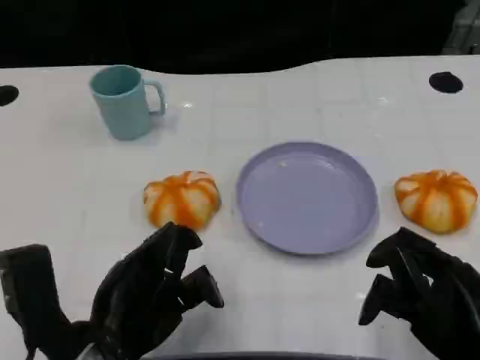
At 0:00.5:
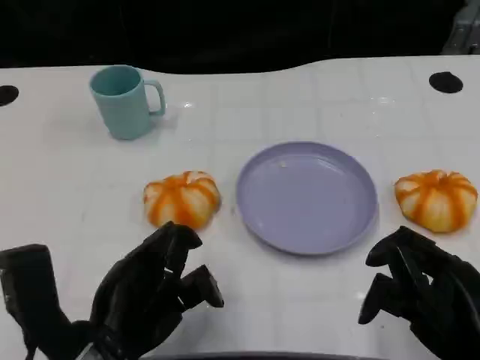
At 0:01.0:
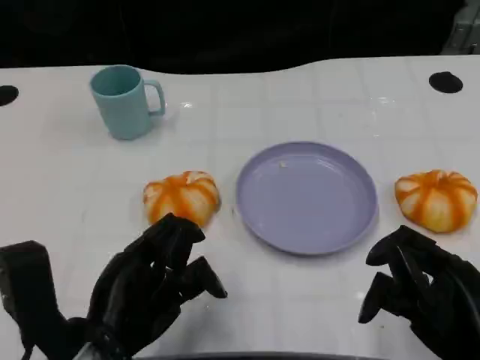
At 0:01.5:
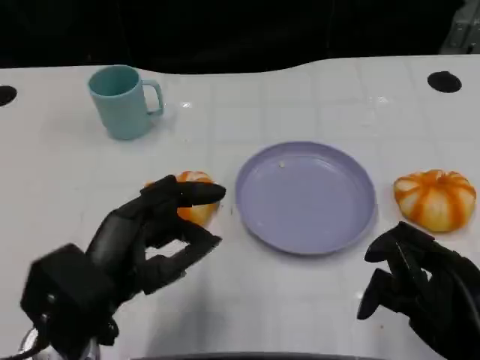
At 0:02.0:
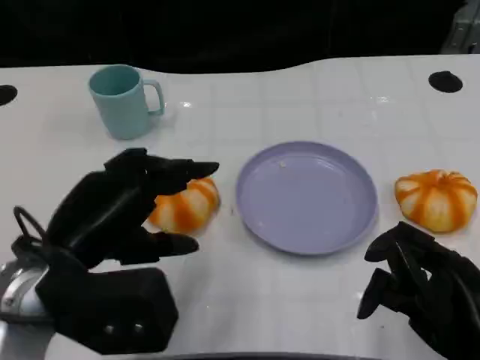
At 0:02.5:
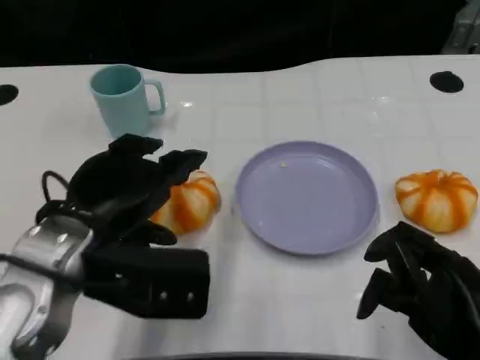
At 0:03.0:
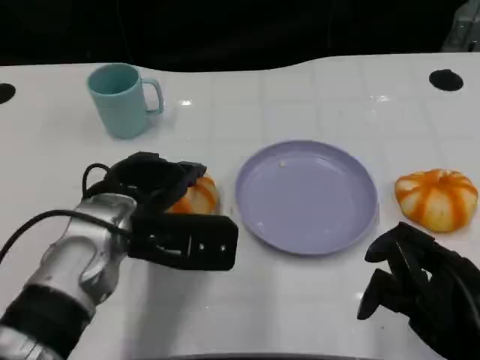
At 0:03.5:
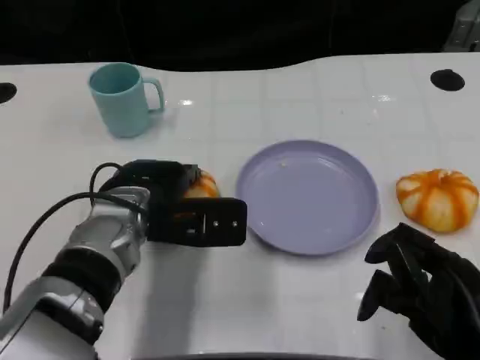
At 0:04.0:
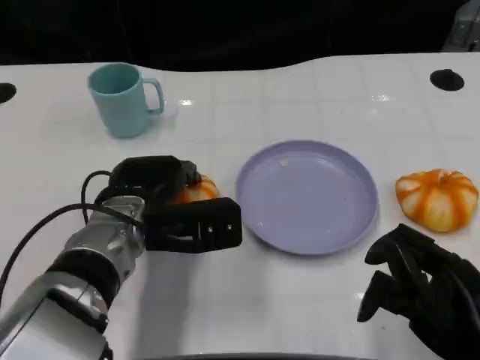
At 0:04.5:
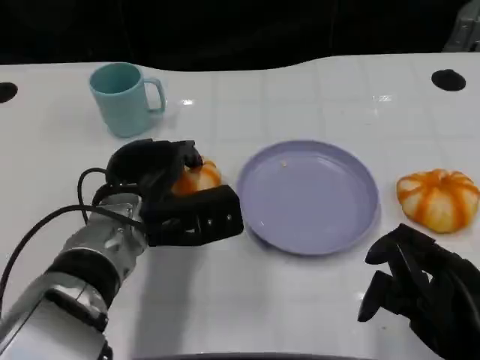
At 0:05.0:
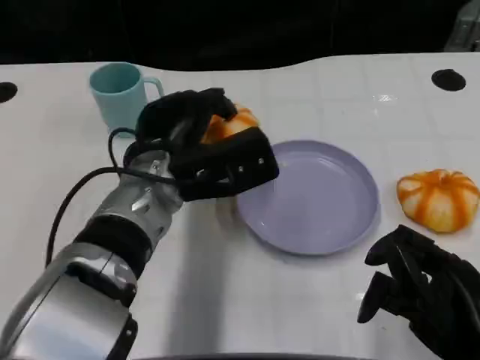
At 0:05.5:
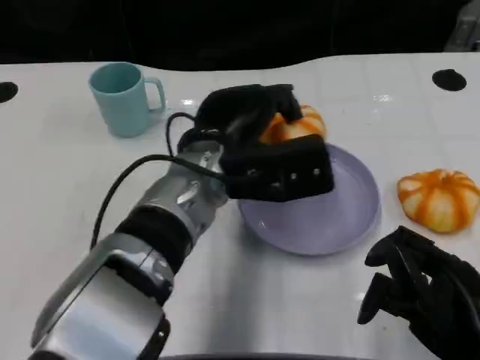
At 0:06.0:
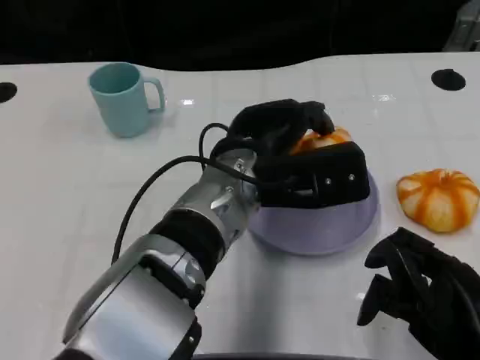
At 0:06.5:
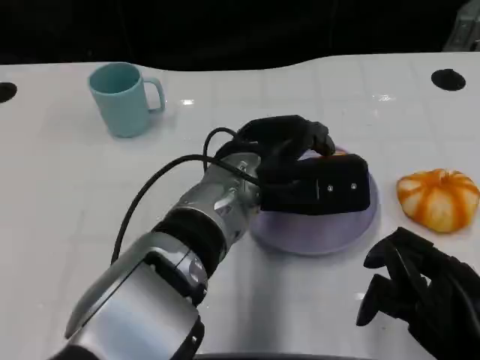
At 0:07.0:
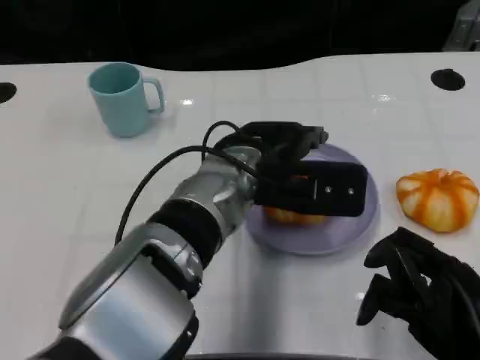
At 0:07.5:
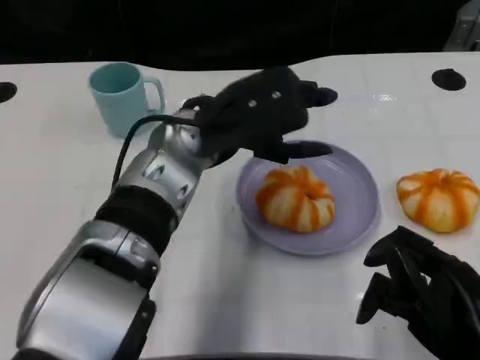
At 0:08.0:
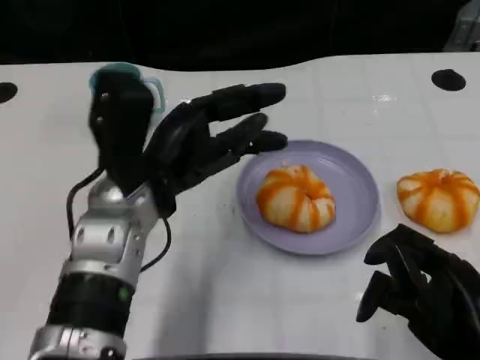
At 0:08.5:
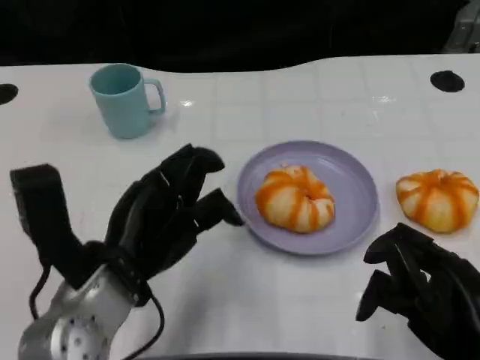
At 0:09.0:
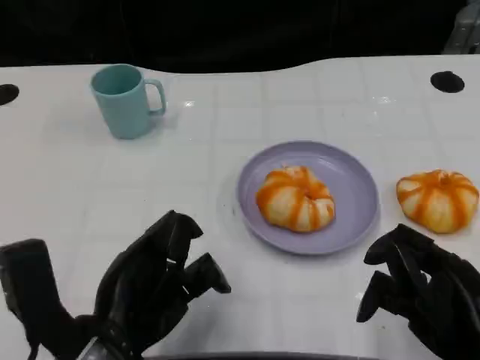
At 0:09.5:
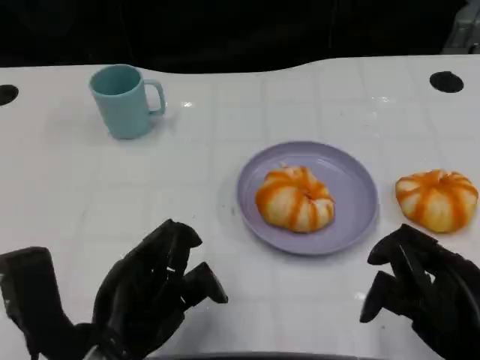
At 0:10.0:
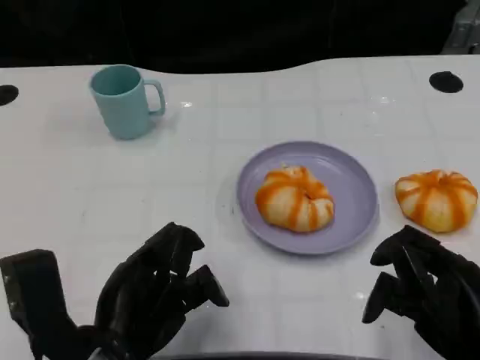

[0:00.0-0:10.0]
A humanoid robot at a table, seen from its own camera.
Task of the whole recording: Grasp the bread from the table and place it into the plate.
0:00.0 to 0:02.0: The left hand shifts about 5 cm upward.
0:02.0 to 0:04.0: The left hand travels forward, downward and to the right by about 15 cm.
0:04.0 to 0:06.0: The left hand heads to the right and upward, covering about 15 cm.
0:06.0 to 0:08.0: The left hand shifts roughly 10 cm to the left.
0:08.0 to 0:10.0: The left hand travels backward by about 15 cm.

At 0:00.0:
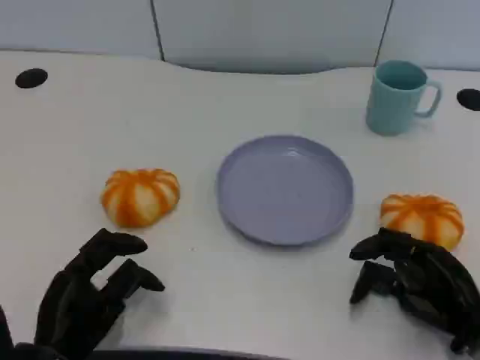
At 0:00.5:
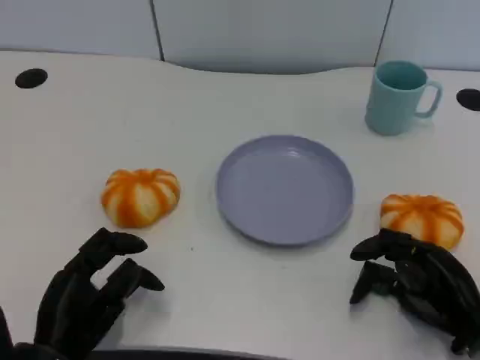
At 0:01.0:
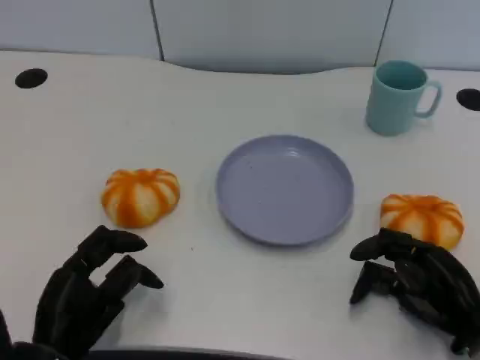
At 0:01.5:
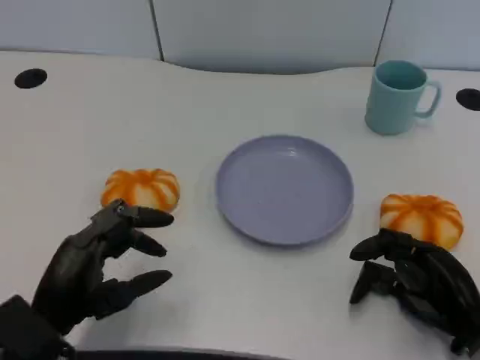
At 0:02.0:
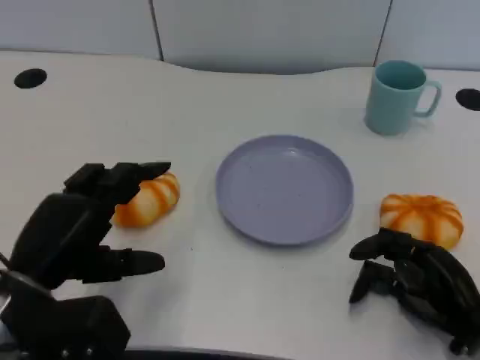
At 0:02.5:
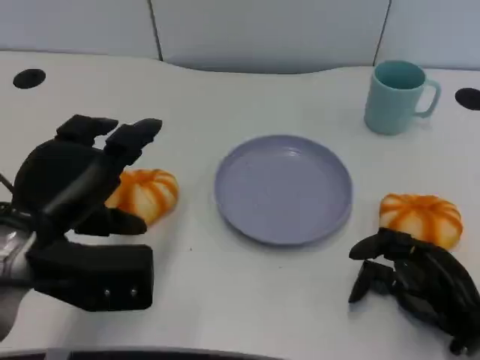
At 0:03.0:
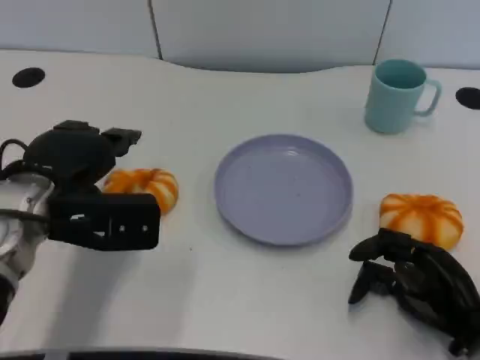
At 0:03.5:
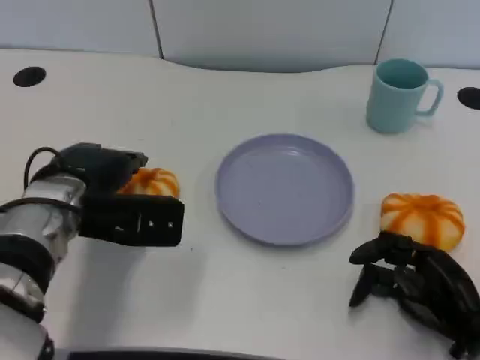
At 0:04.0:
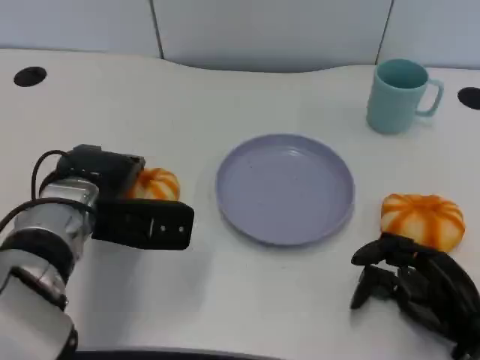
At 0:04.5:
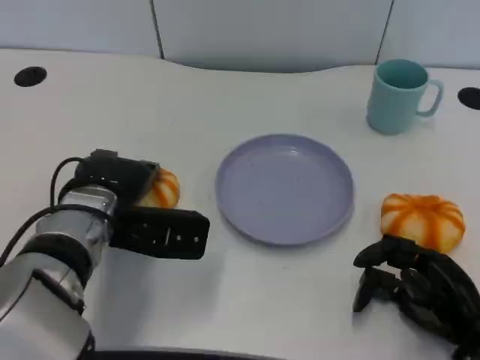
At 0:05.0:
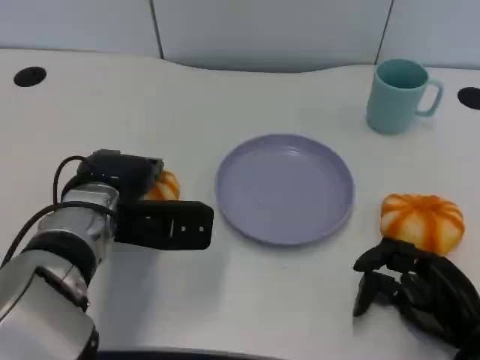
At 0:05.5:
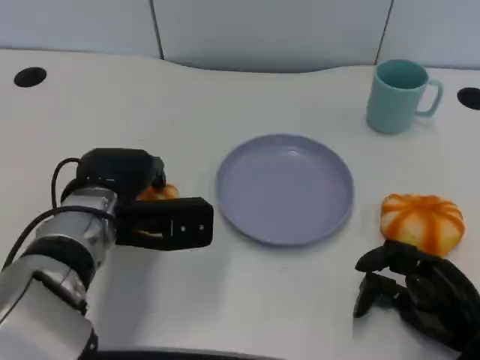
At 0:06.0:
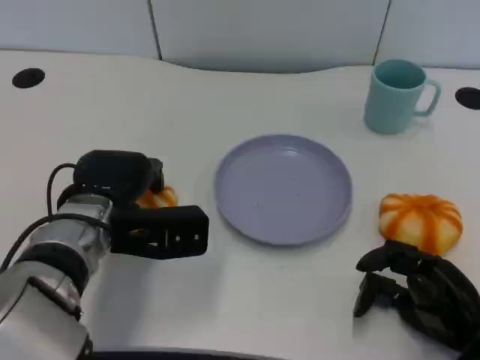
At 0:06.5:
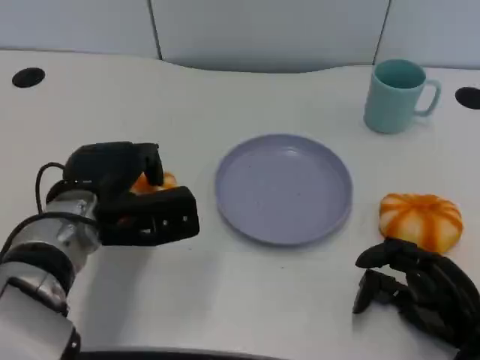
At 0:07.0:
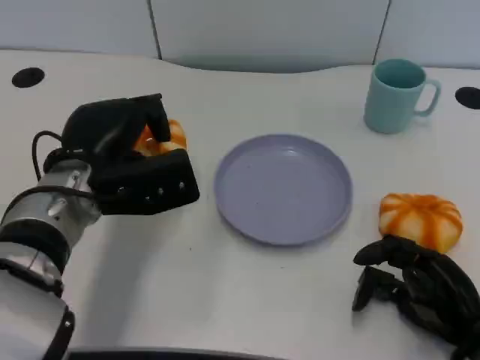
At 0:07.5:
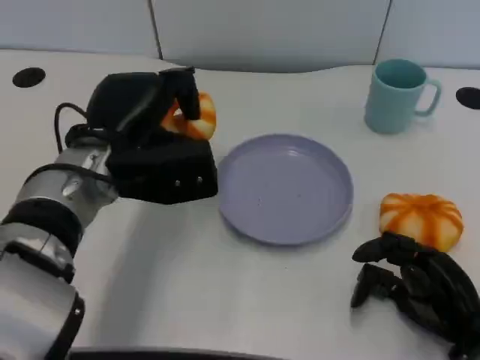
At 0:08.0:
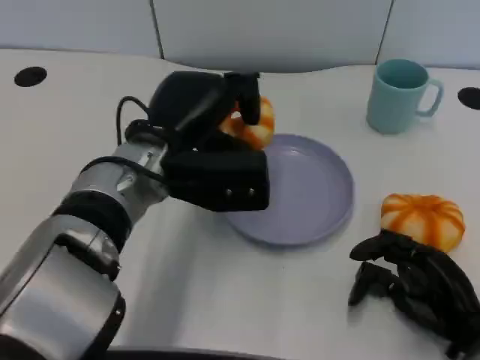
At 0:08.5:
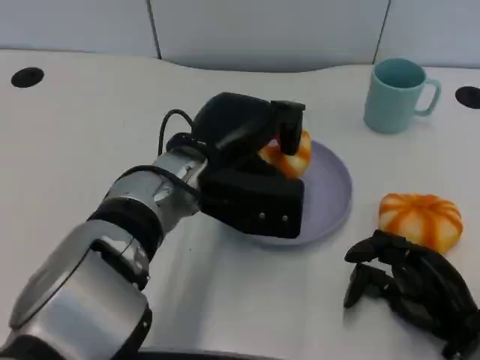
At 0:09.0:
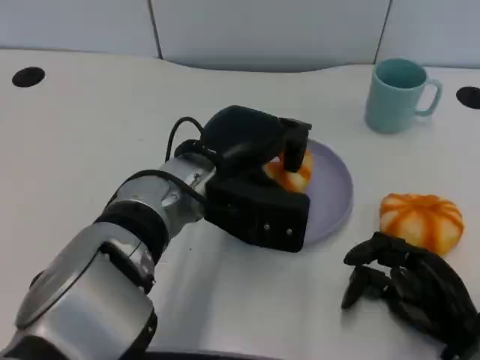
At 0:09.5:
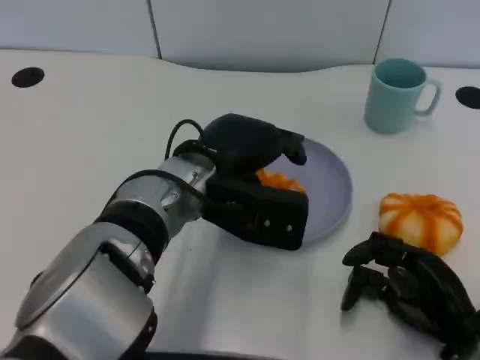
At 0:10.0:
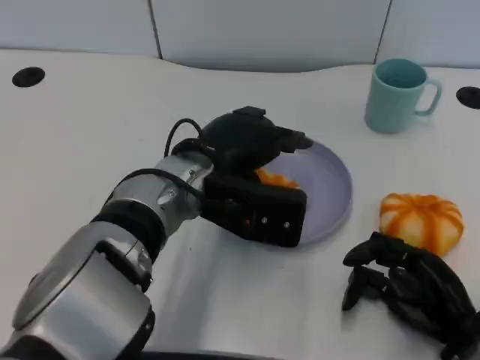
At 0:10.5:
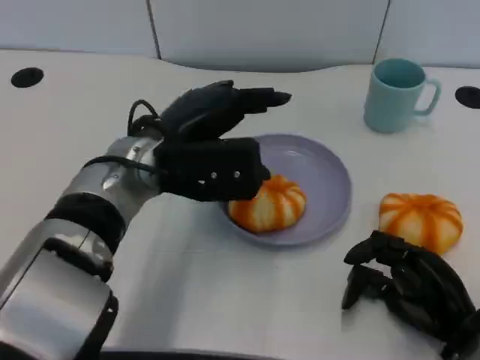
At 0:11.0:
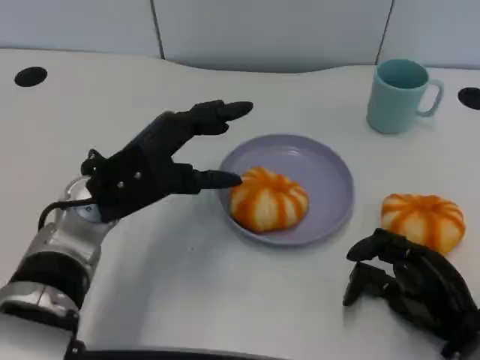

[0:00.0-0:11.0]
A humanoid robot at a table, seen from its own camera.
Task of the whole recording: Grasp the bread from the table and place it into the plate.
0:00.0 to 0:02.0: The left hand moves upward, roughly 10 cm.
0:02.0 to 0:03.5: The left hand goes about 10 cm forward.
0:03.5 to 0:05.5: The hands make only small movements.
0:05.5 to 0:07.5: The left hand goes about 5 cm upward.
0:07.5 to 0:09.0: The left hand goes approximately 10 cm to the right.
0:09.0 to 0:11.0: The left hand travels to the left by roughly 10 cm.

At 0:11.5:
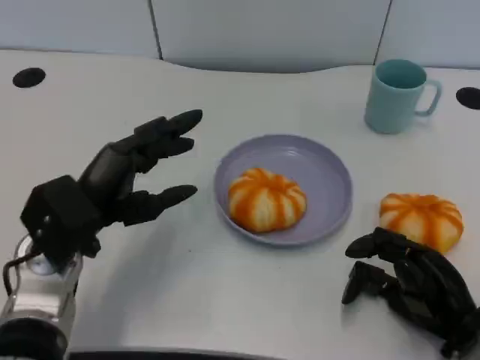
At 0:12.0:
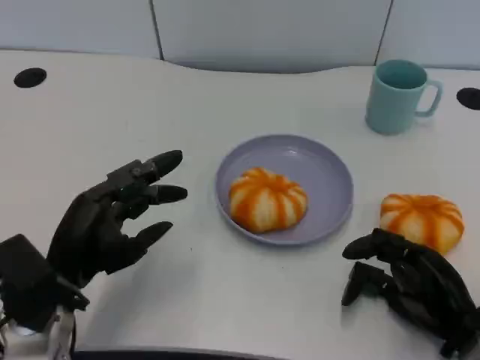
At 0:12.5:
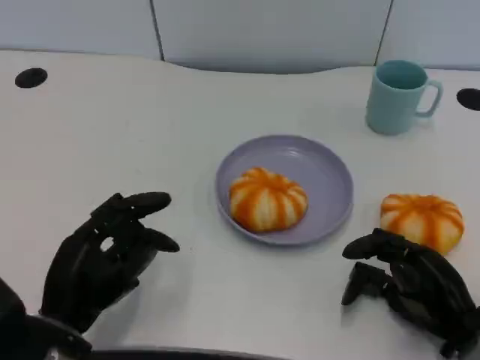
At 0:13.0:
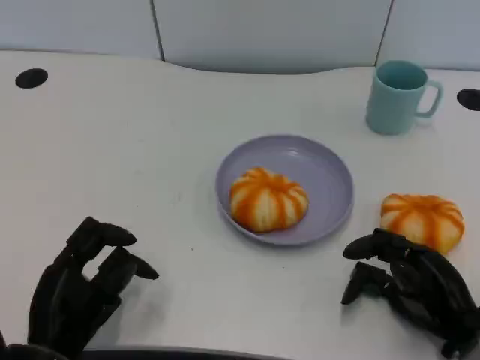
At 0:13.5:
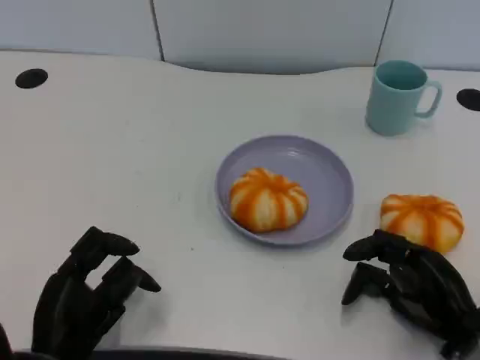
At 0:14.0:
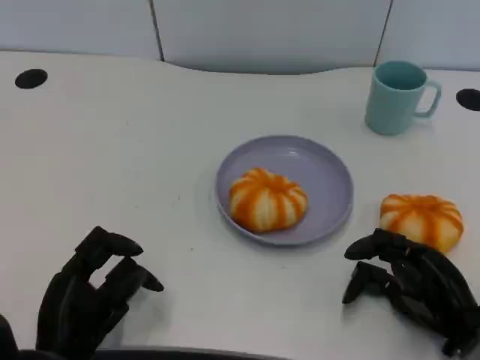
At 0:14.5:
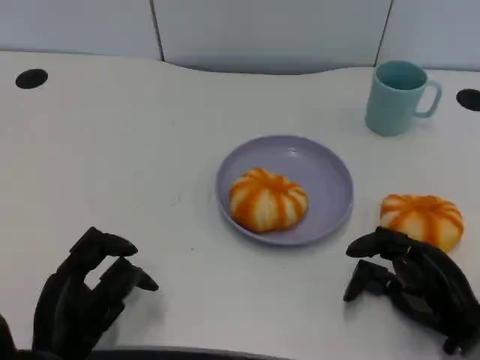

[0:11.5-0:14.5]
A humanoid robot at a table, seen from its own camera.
Task of the whole recording: Grasp the bread from the table and place it into the plate.
0:11.5 to 0:13.0: The left hand heads backward and downward, covering approximately 10 cm.
0:13.0 to 0:14.5: Both hands stay put.

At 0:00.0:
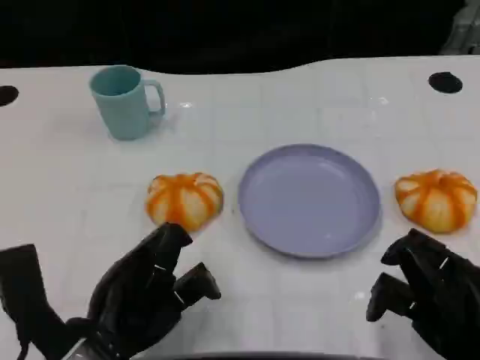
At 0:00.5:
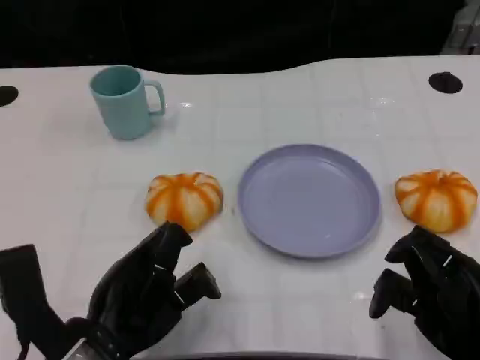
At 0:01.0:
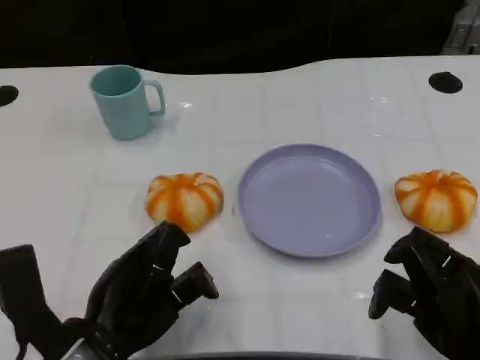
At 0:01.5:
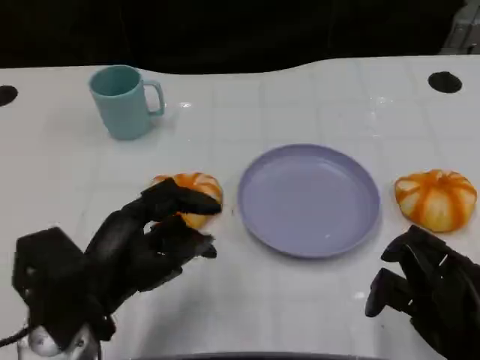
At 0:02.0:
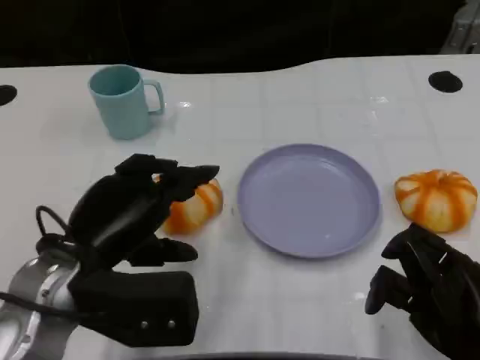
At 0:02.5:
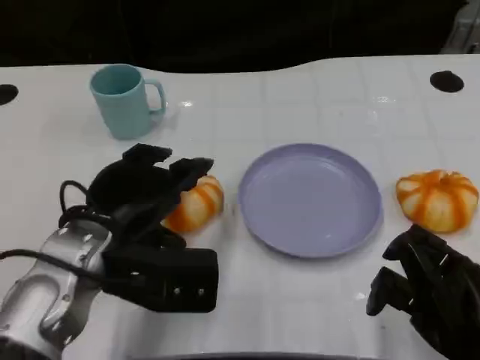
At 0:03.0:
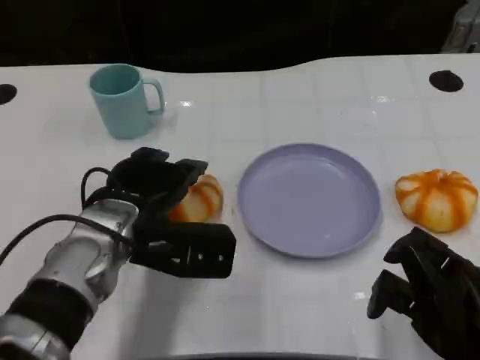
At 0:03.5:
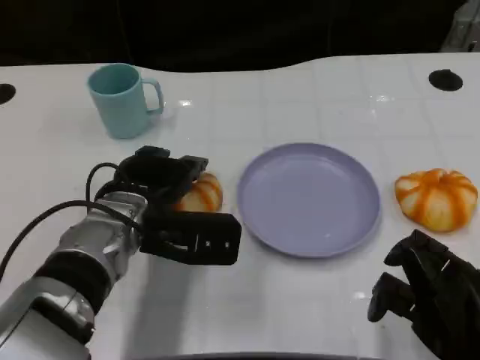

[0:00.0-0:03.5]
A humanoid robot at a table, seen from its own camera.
Task of the whole recording: Grasp the bread from the table and place it into the plate.
0:00.0 to 0:02.0: The left hand is displaced upward by roughly 5 cm.
0:02.0 to 0:03.5: The left hand moves forward, about 10 cm.
